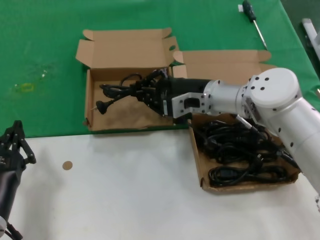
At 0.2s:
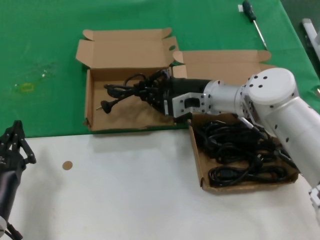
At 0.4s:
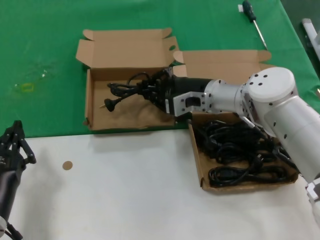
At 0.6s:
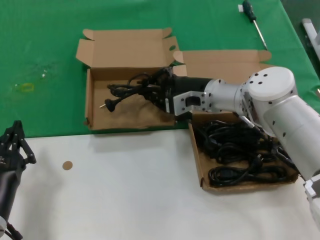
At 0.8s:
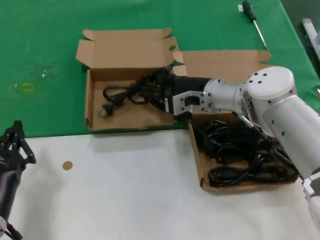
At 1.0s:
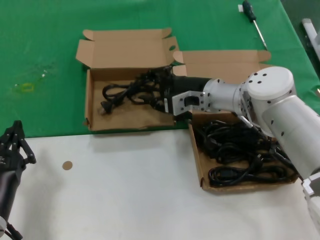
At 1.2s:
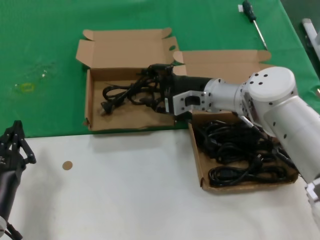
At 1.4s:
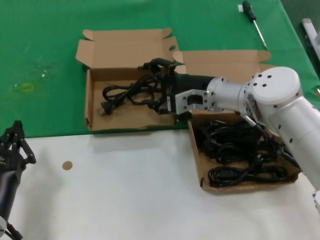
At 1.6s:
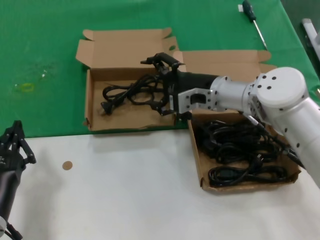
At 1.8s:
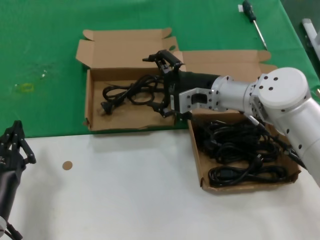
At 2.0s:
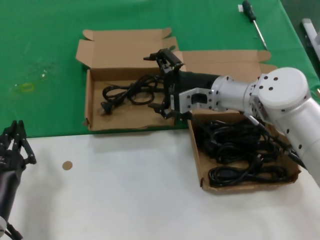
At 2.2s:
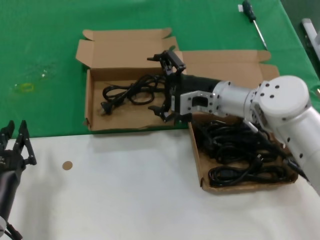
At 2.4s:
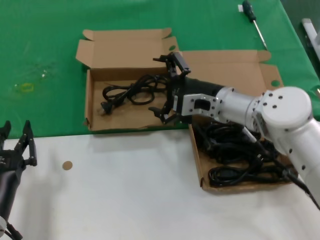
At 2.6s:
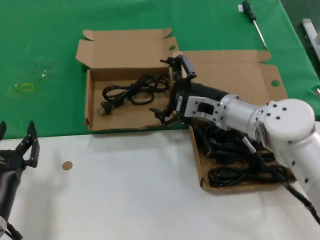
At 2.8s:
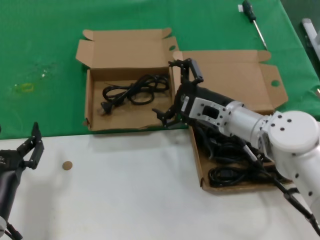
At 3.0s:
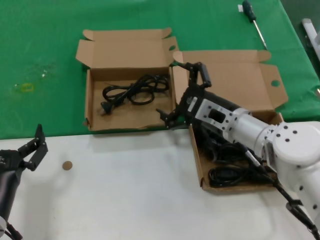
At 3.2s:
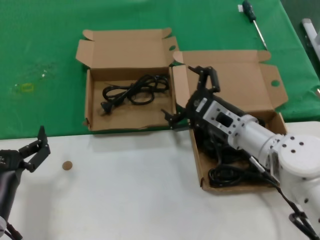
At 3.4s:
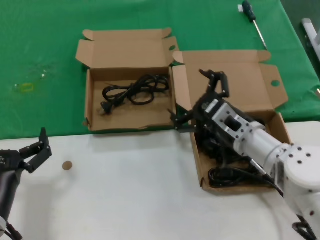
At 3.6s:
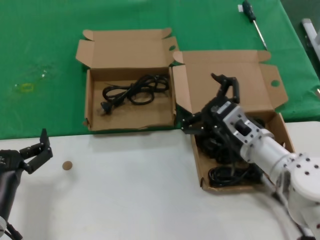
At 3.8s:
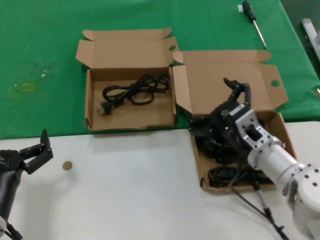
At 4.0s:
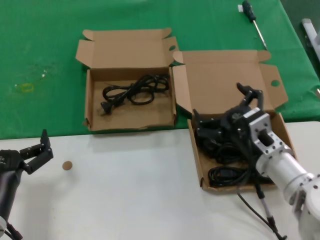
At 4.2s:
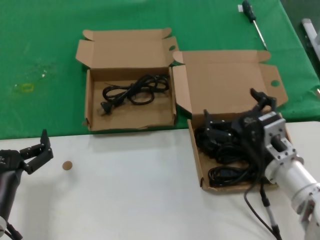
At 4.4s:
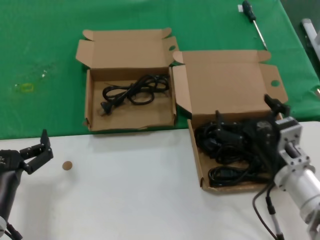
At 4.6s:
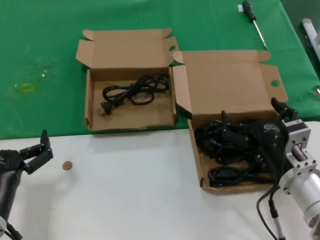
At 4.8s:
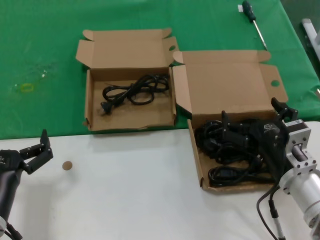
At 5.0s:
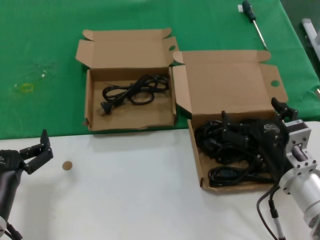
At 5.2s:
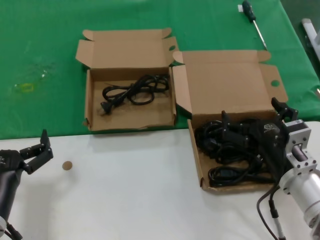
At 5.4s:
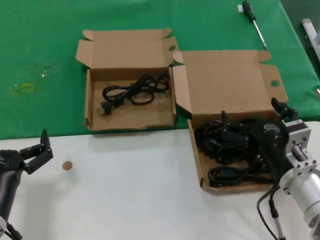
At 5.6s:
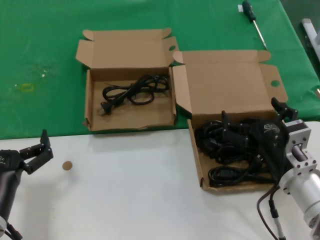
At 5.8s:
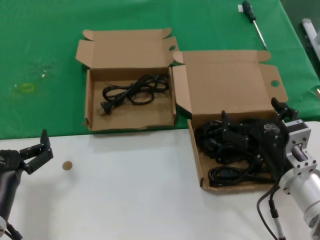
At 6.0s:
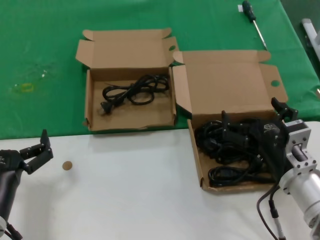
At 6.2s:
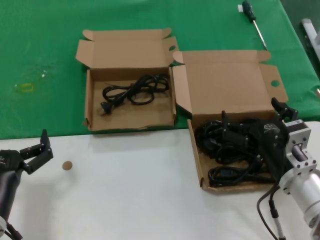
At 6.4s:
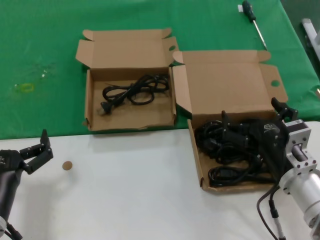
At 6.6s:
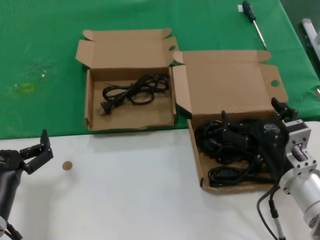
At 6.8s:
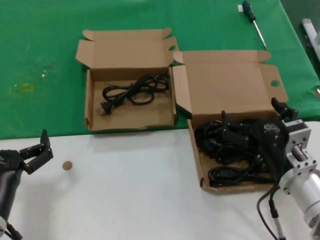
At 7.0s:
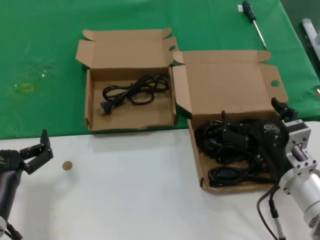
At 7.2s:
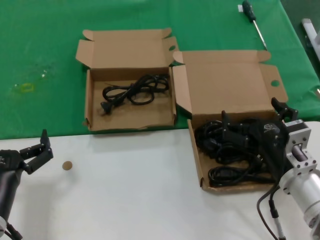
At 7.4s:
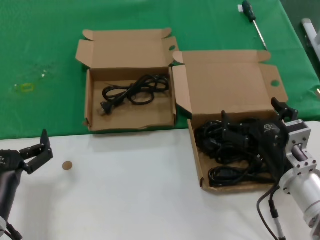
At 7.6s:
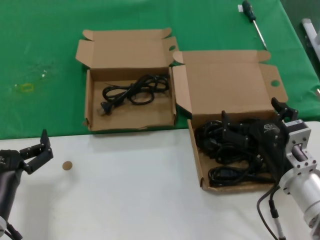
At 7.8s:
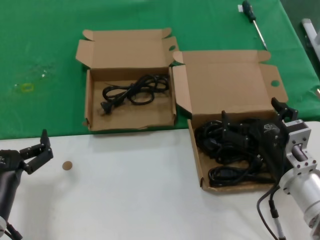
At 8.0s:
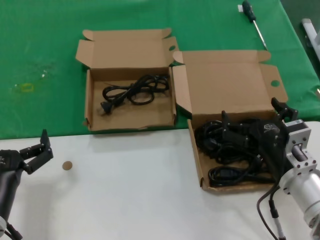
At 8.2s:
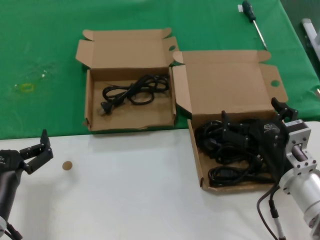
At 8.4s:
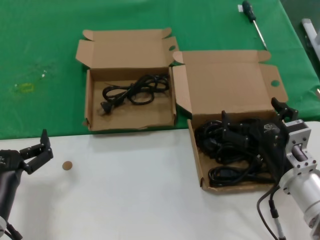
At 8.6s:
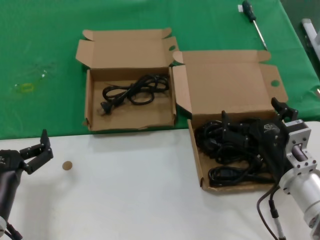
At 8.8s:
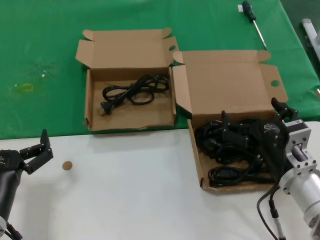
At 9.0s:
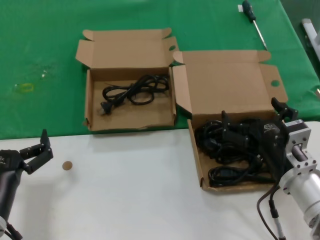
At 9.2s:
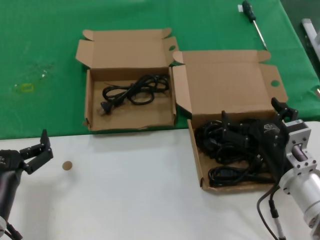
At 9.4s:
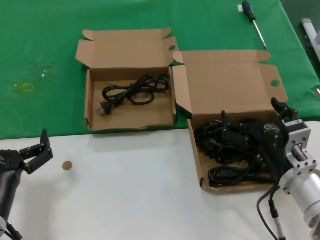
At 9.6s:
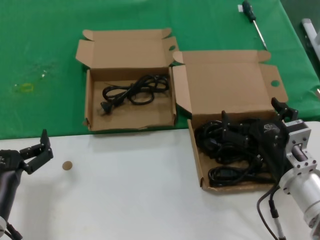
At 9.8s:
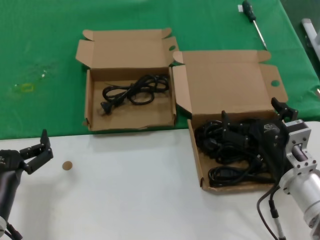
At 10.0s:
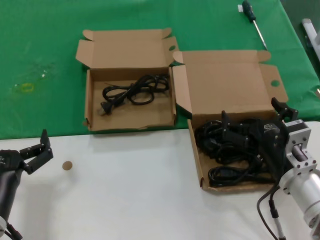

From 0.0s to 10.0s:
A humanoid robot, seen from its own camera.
Task of the whole recording: take the parts from the box containing them and put them into an empty box.
From 0.0s to 1.4s: The hands move only a little.
From 1.4s to 2.8s: The right hand travels backward by roughly 5 cm.
From 2.8s to 4.2s: The right hand goes about 15 cm backward and downward.
From 4.2s to 5.8s: The hands move only a little.
From 5.8s to 10.0s: Both hands stay about where they are.

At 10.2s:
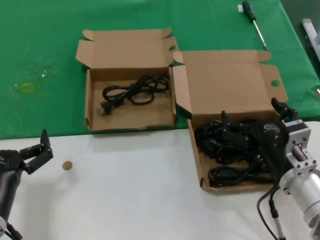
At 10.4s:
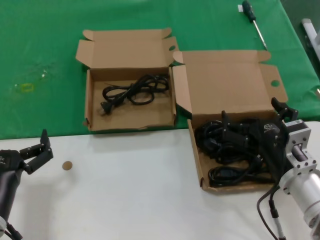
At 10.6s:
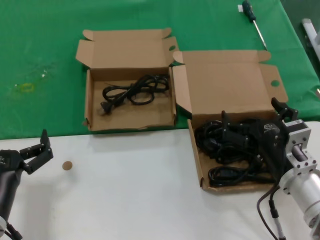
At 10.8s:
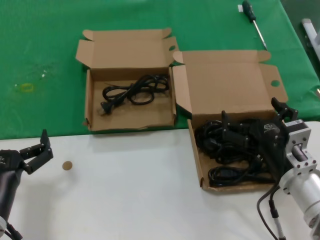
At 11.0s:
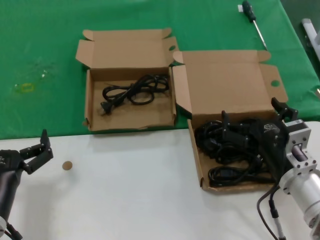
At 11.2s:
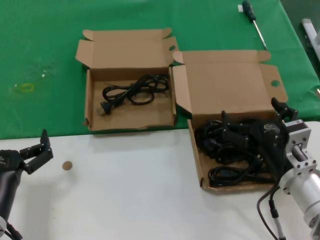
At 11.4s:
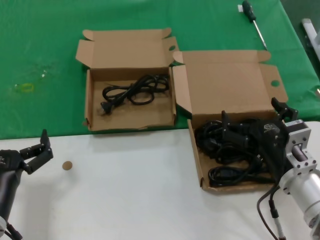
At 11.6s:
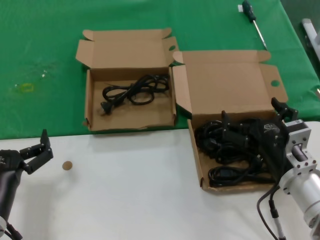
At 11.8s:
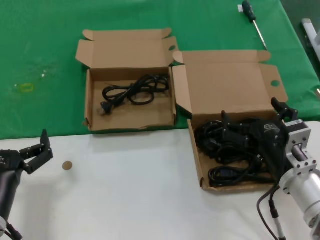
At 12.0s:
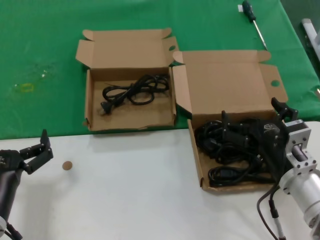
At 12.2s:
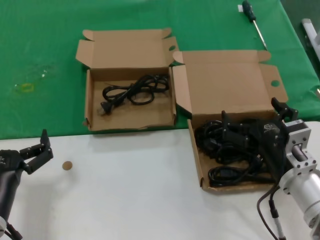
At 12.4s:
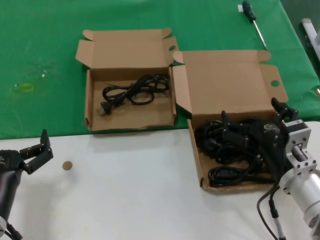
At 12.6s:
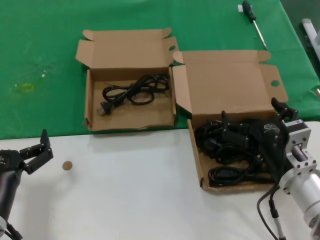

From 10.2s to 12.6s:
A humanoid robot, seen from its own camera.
Task of the whole recording: take the parts from the box containing them and put them into an empty box.
From 10.2s to 12.6s: Neither hand changes place.

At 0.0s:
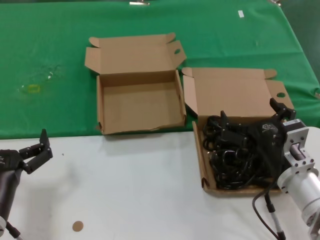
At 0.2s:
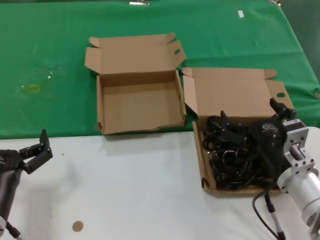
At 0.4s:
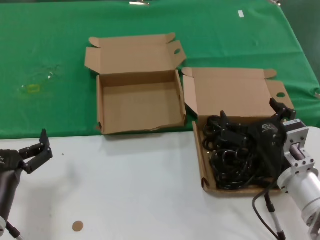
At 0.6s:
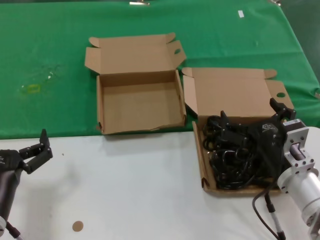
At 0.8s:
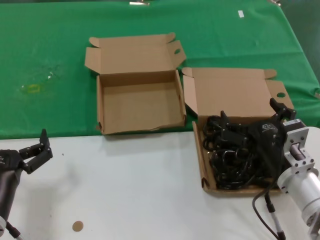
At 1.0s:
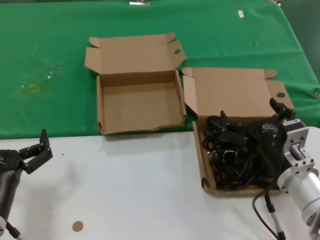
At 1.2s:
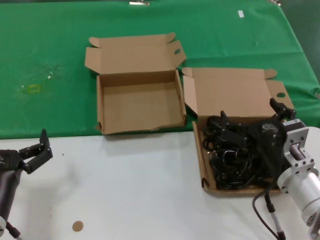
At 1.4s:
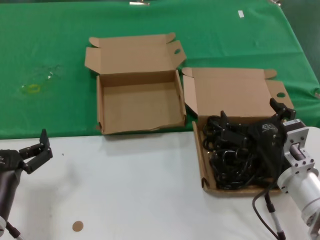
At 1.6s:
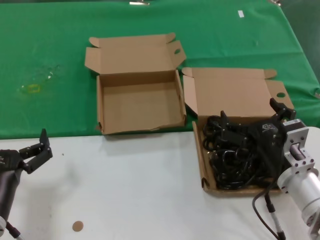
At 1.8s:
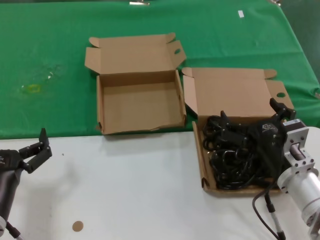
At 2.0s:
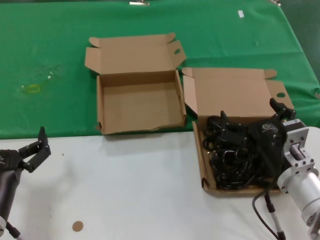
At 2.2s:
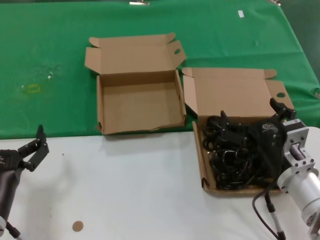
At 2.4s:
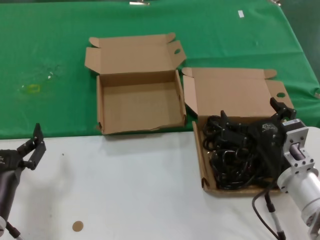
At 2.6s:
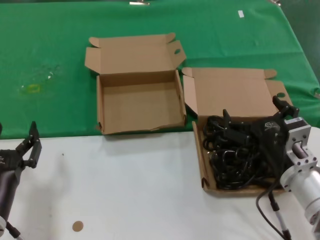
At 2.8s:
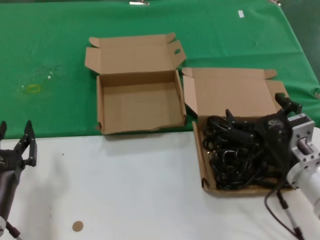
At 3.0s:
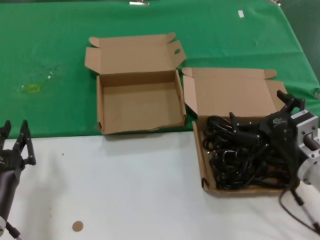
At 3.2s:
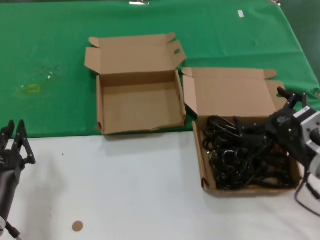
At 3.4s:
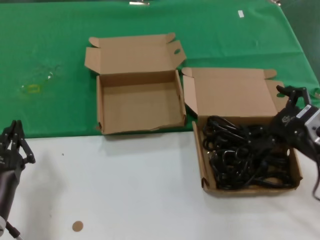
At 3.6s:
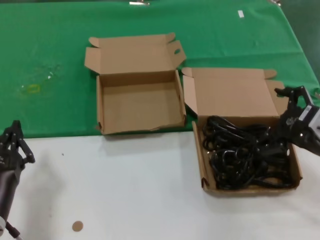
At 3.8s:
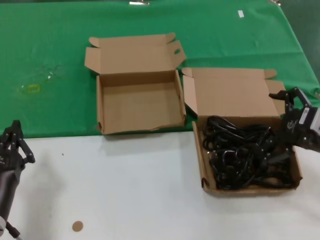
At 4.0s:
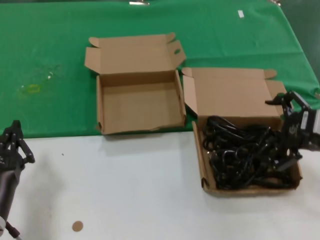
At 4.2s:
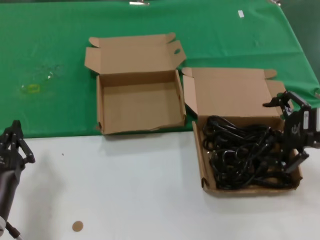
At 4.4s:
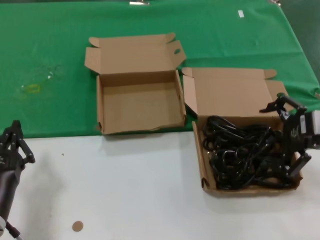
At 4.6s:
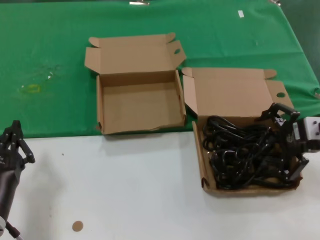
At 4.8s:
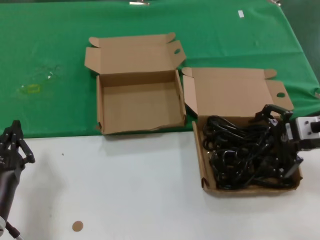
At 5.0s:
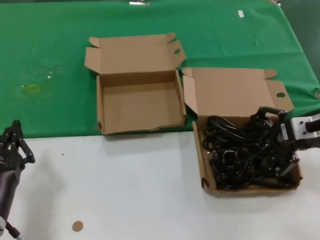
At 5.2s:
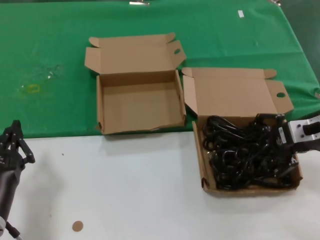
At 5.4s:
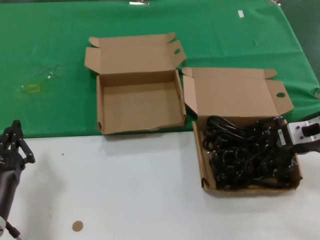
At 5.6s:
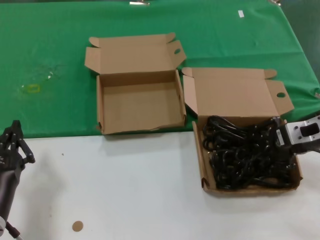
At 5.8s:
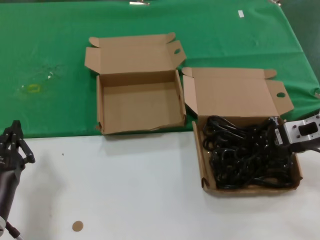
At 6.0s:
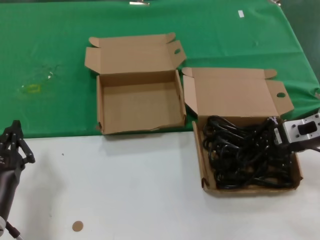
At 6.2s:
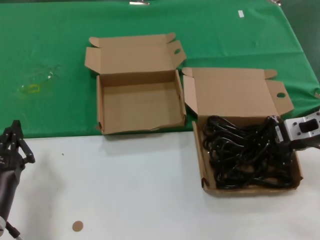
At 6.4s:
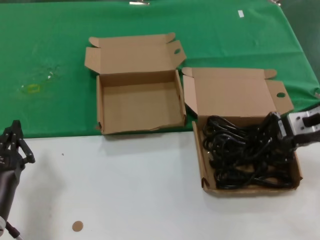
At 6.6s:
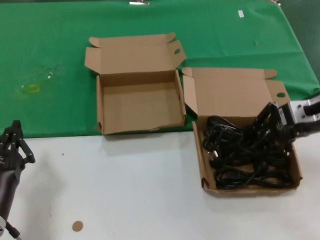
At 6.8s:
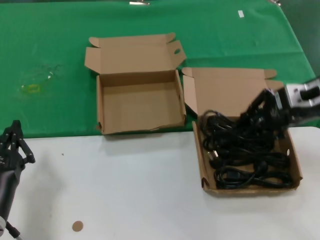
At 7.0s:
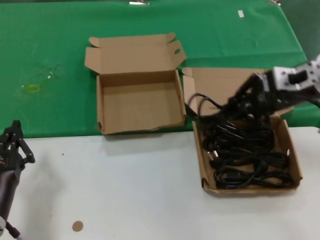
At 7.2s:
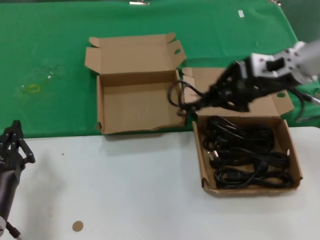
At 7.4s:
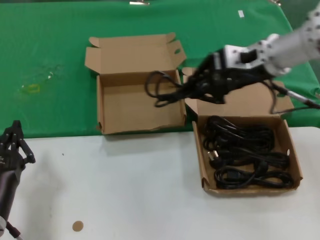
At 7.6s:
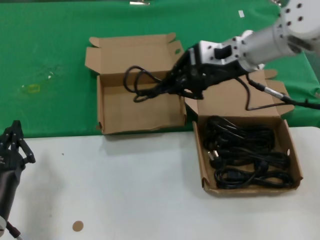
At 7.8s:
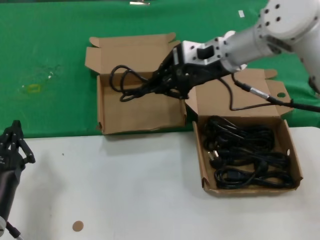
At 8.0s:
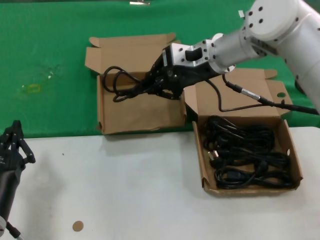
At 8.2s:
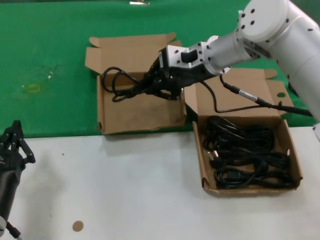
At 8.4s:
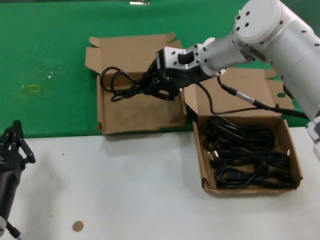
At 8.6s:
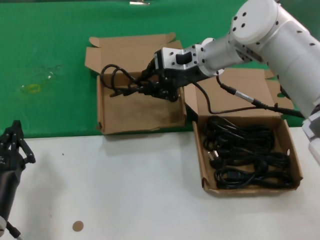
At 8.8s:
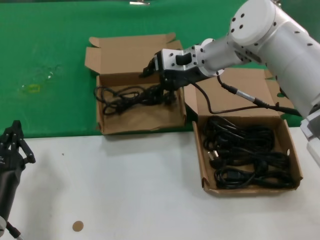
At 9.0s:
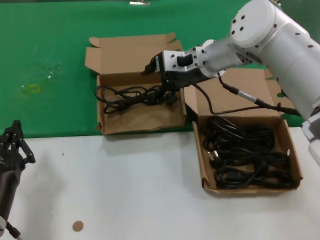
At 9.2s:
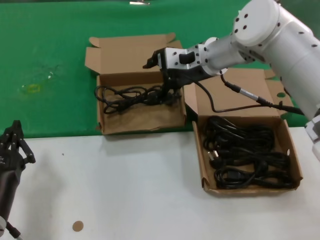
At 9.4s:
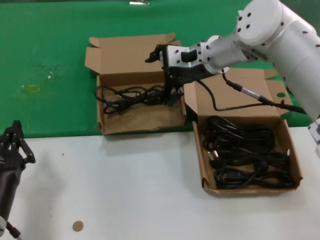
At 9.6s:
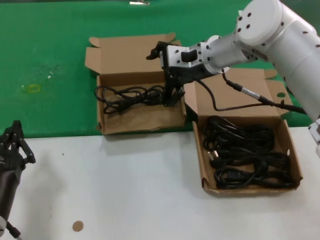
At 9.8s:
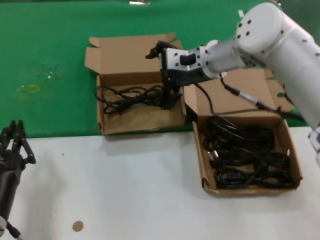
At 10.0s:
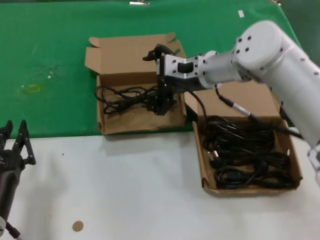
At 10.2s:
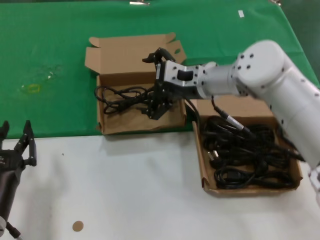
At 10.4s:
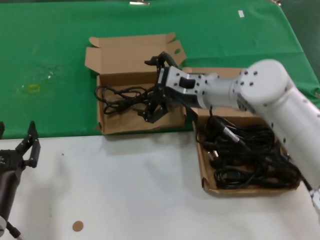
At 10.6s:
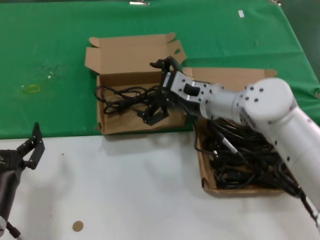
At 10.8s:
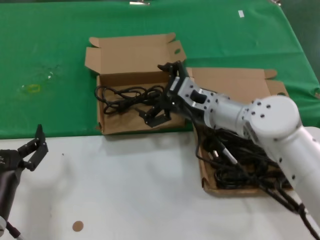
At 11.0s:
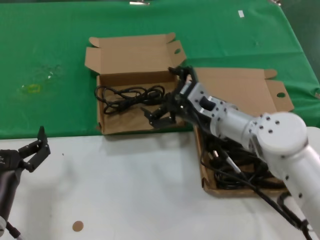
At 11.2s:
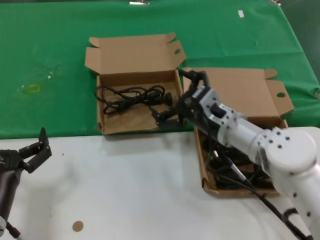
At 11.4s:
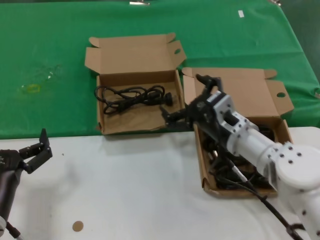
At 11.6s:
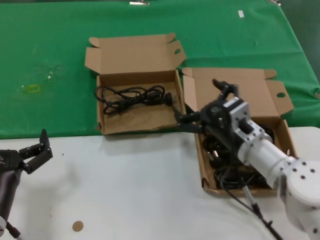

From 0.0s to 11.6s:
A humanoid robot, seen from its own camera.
Task of the whole recording: take the parts from the box containing them and put them into an empty box.
Step, from 0.0s to 6.0s: Grasp the data cable.
Step, from 6.2s to 8.8s: Place the data cable in the another box.
From 0.0s to 1.4s: Neither hand changes place.
From 1.4s to 2.8s: The hands move only a little.
From 2.8s to 4.4s: The right hand moves upward and to the right, some 20 cm.
From 4.4s to 5.8s: The right hand heads forward, covering some 5 cm.
From 5.8s to 7.2s: The right hand heads upward and to the left, covering roughly 10 cm.
From 7.2s to 8.8s: The right hand is displaced to the left and forward by about 15 cm.
From 8.8s to 10.2s: The right hand heads downward, covering roughly 5 cm.
From 10.2s to 11.6s: The right hand shifts some 20 cm backward, downward and to the right.
